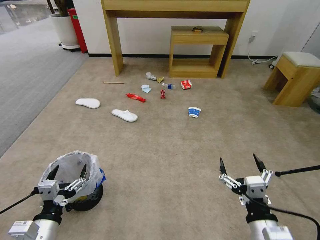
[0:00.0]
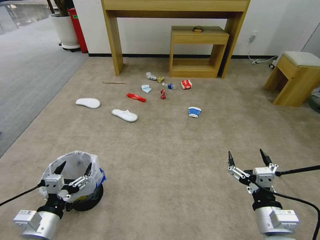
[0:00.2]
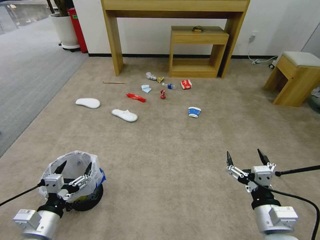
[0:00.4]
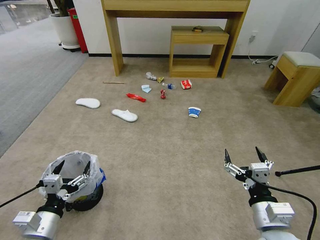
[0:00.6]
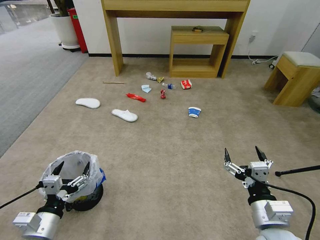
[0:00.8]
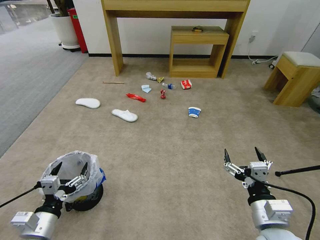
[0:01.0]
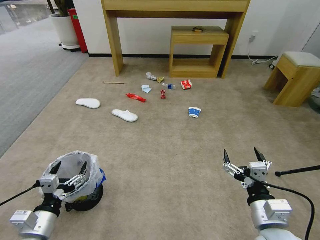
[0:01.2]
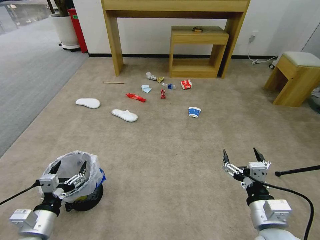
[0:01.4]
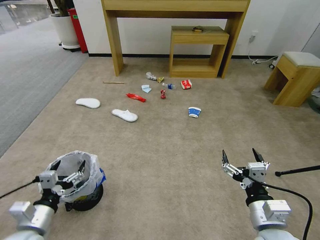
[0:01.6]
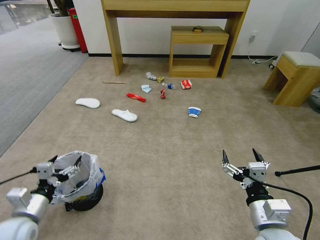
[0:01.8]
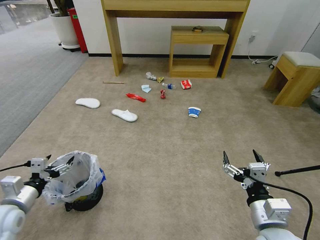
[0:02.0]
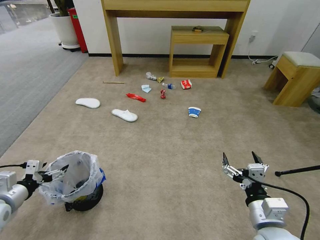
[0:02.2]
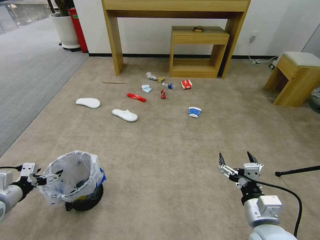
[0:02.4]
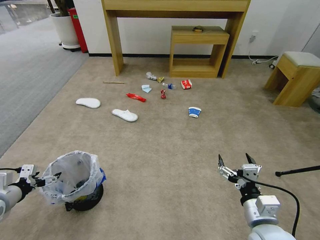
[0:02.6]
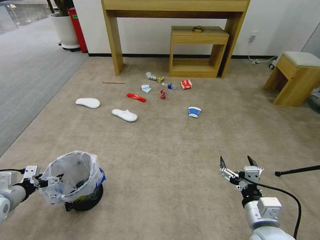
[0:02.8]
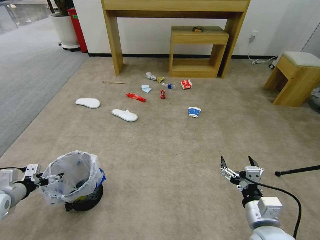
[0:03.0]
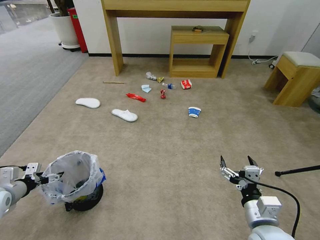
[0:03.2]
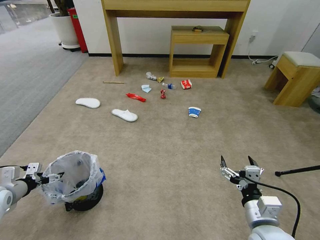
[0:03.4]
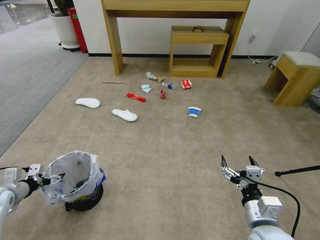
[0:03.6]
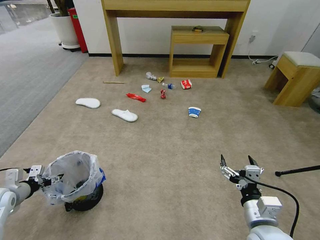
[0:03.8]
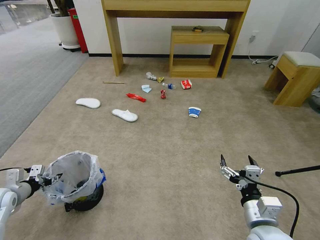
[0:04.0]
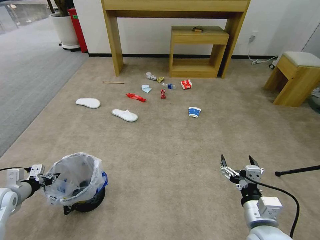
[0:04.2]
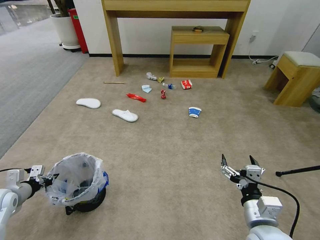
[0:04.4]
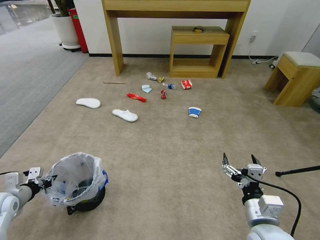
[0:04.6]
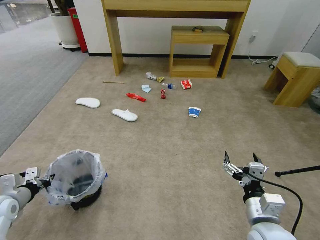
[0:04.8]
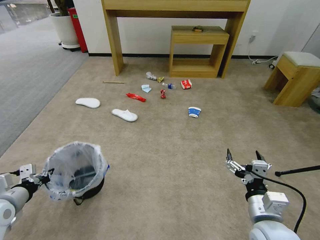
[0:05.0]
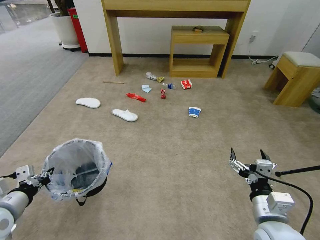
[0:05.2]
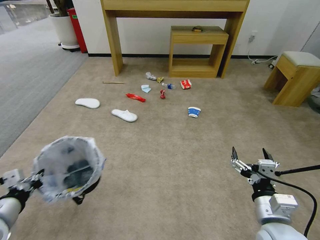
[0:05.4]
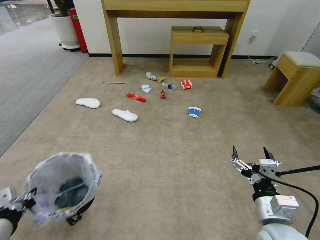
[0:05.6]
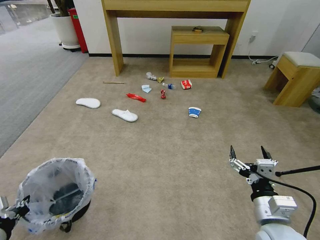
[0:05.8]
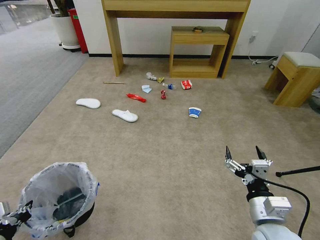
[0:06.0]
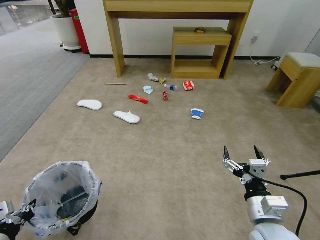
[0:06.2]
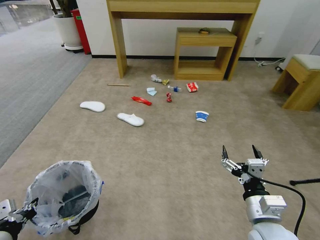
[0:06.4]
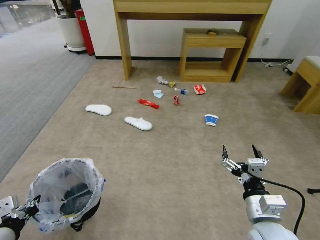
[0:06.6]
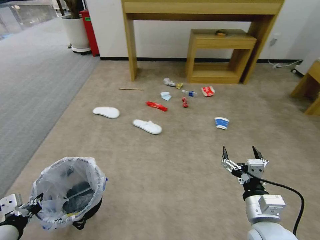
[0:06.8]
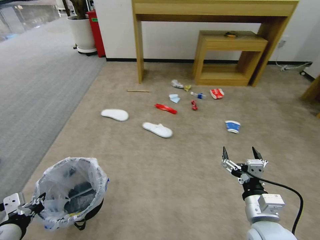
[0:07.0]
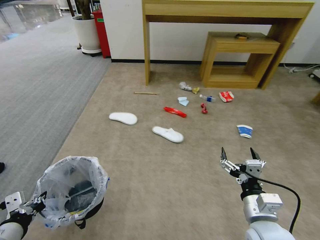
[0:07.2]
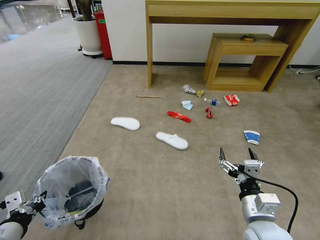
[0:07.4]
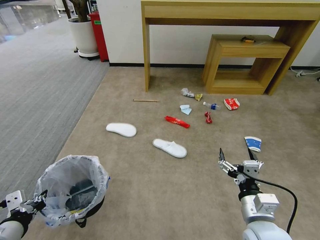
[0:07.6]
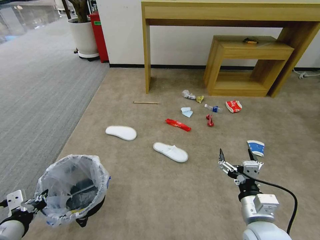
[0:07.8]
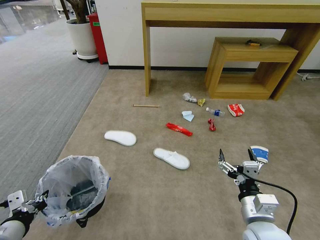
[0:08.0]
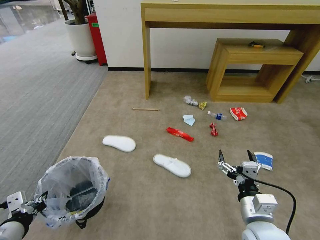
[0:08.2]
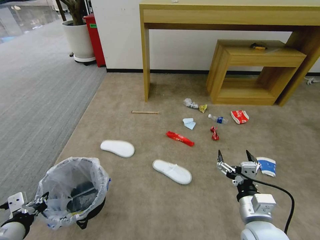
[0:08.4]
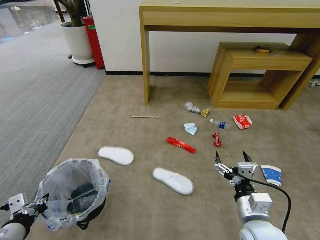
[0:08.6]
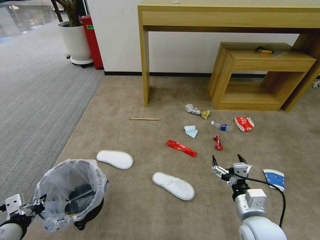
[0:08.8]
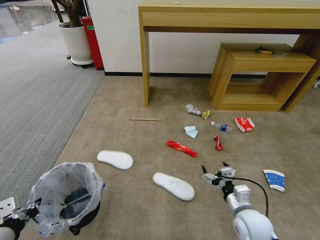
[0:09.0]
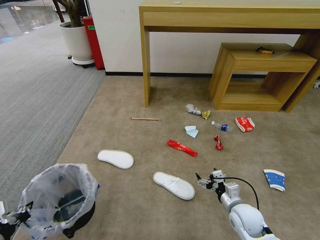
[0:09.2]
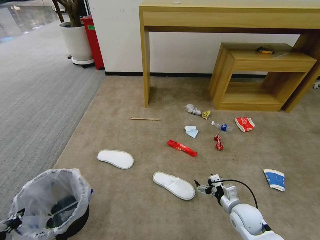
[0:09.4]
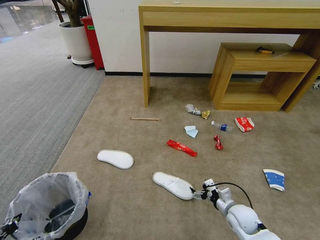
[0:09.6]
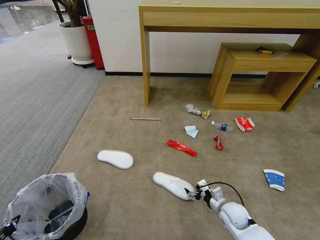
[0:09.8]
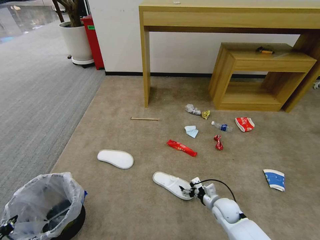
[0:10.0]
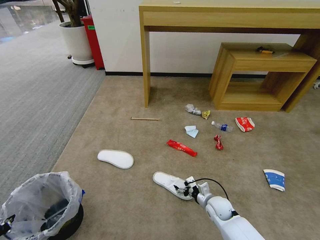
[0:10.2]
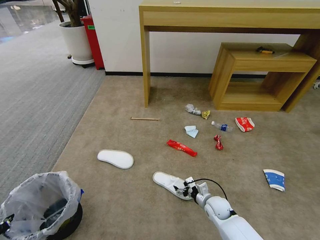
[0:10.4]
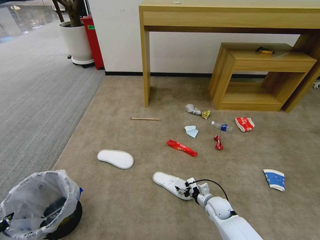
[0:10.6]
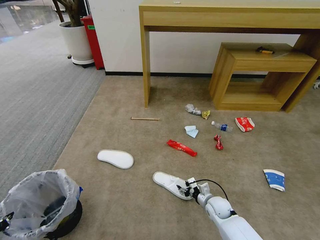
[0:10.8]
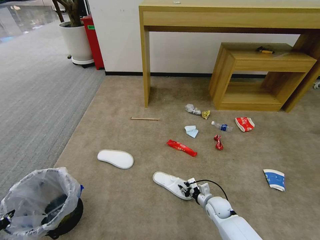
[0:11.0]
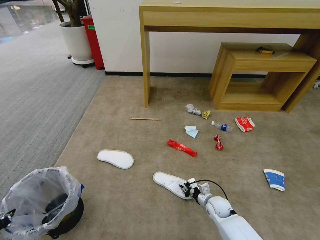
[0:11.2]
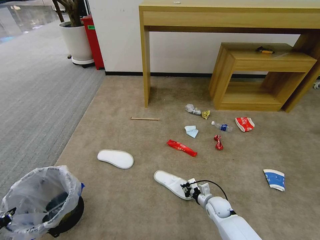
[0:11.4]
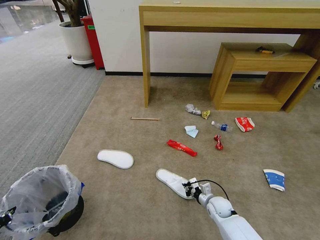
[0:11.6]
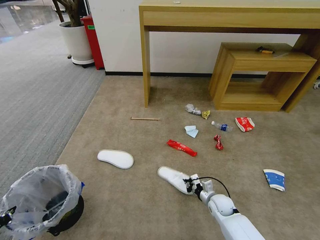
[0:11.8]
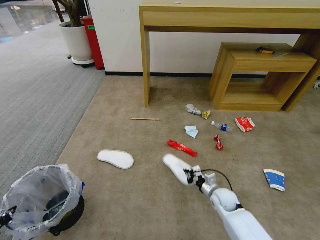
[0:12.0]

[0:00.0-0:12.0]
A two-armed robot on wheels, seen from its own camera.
Task of the whole recording: Pick up the trash bin and place the garbage on the floor into it.
0:01.6 to 0:03.0: The left gripper heads to the left and forward, covering roughly 20 cm.
0:03.0 to 0:04.4: The left gripper closes up.
0:04.4 to 0:06.0: The left gripper is displaced backward and to the right by about 20 cm.
0:07.6 to 0:09.0: The right gripper travels downward by about 10 cm.
0:09.0 to 0:10.4: The left gripper travels to the left by about 5 cm; the right gripper goes about 15 cm downward and forward.
0:10.4 to 0:12.0: The right gripper ends up roughly 5 cm from where it was, and closes up.

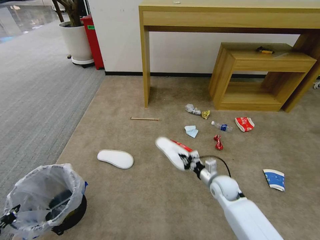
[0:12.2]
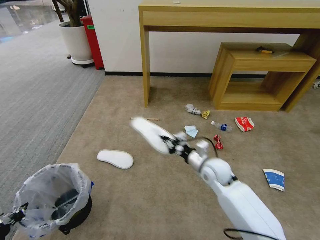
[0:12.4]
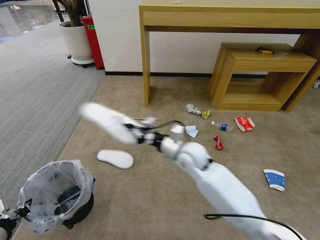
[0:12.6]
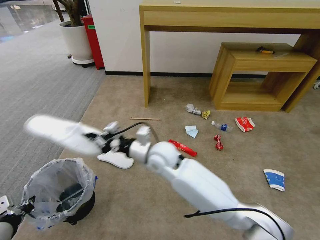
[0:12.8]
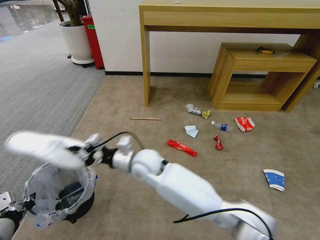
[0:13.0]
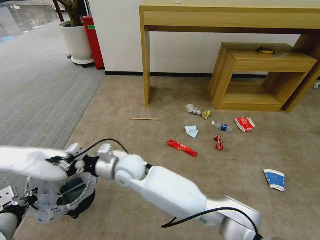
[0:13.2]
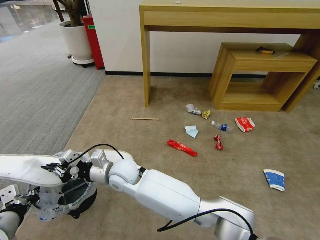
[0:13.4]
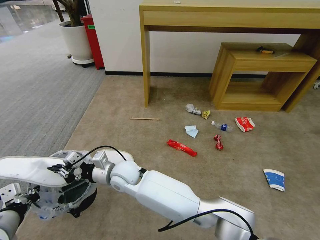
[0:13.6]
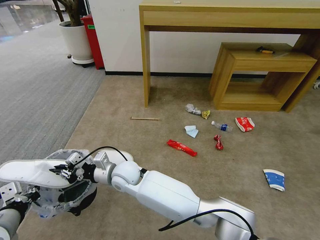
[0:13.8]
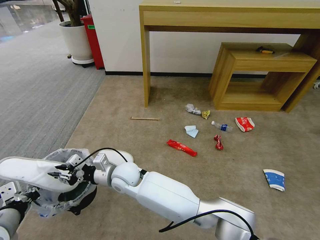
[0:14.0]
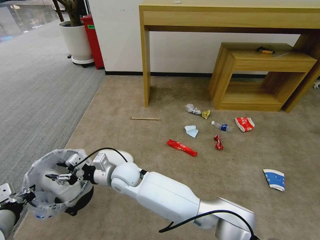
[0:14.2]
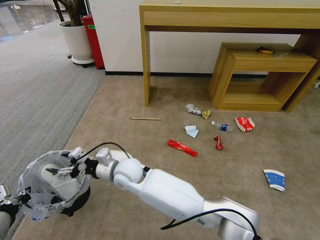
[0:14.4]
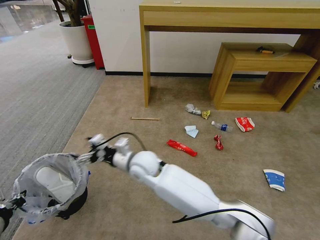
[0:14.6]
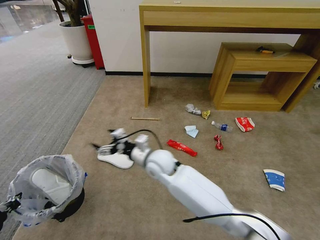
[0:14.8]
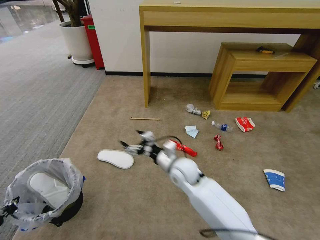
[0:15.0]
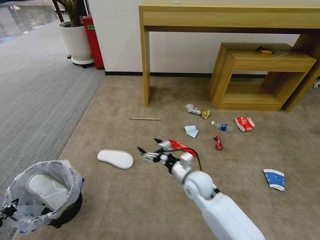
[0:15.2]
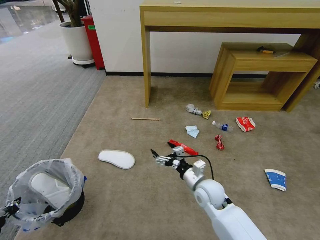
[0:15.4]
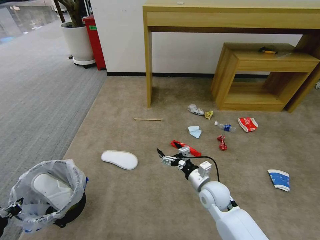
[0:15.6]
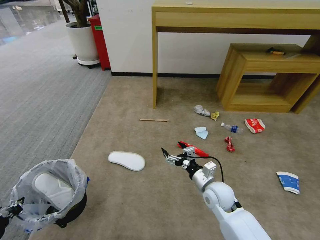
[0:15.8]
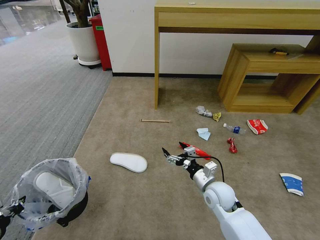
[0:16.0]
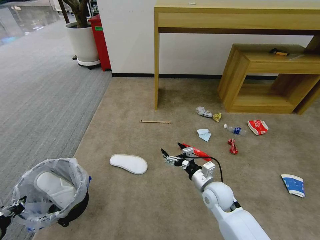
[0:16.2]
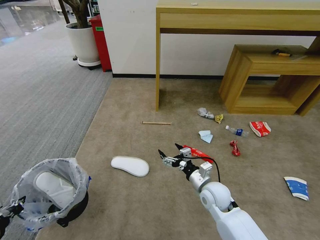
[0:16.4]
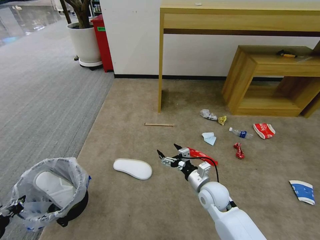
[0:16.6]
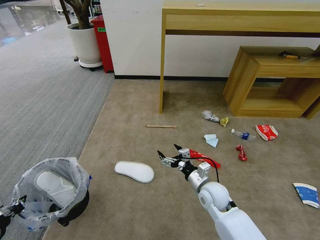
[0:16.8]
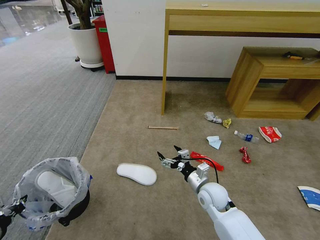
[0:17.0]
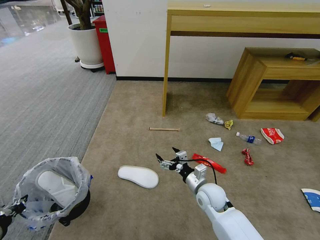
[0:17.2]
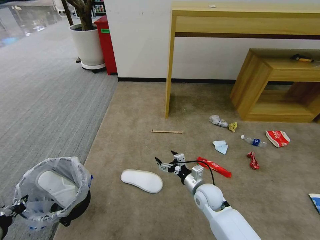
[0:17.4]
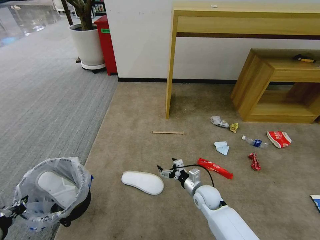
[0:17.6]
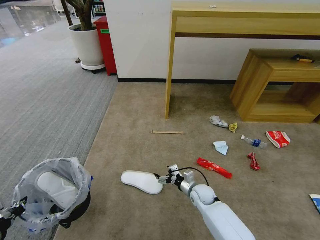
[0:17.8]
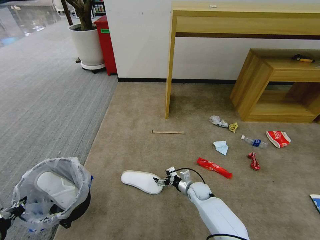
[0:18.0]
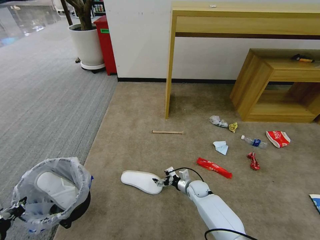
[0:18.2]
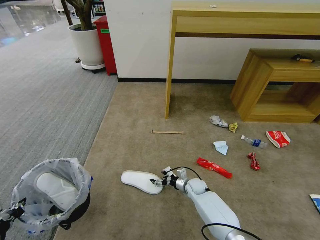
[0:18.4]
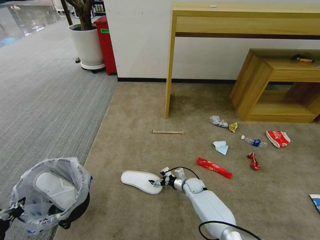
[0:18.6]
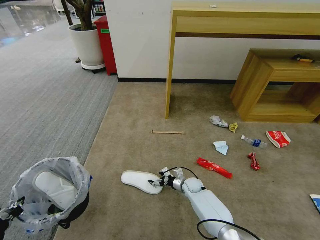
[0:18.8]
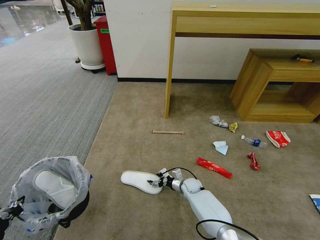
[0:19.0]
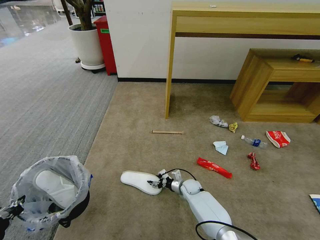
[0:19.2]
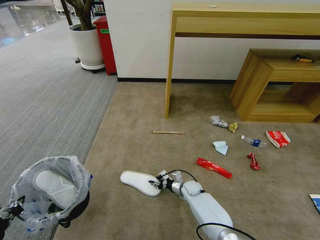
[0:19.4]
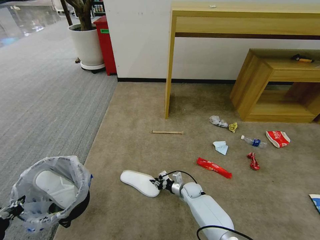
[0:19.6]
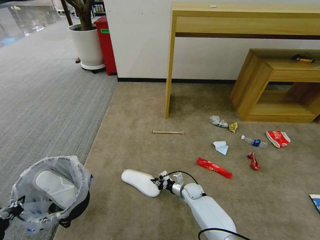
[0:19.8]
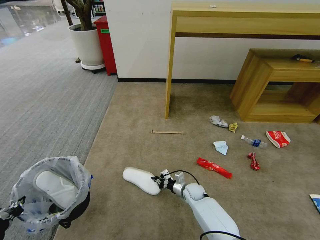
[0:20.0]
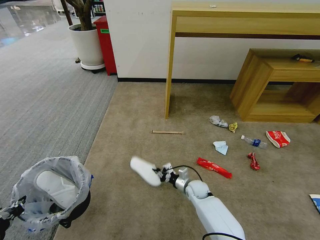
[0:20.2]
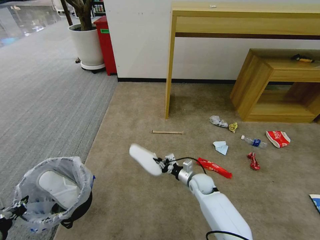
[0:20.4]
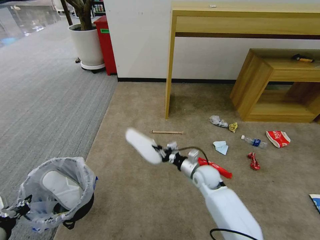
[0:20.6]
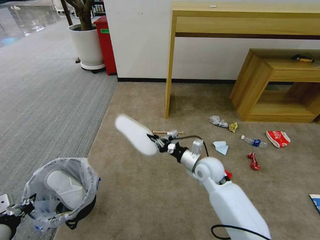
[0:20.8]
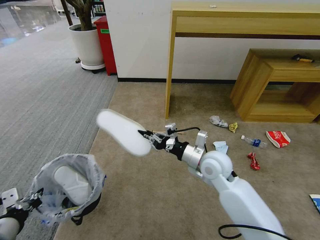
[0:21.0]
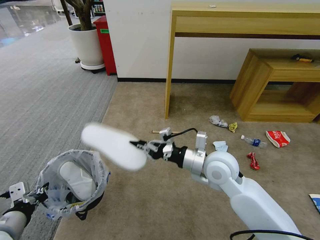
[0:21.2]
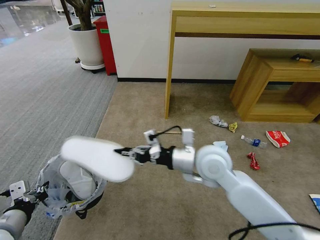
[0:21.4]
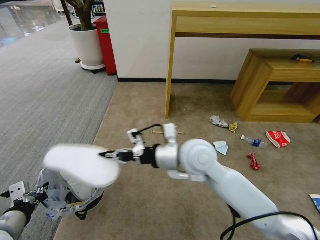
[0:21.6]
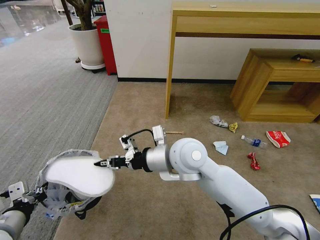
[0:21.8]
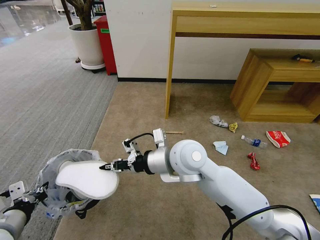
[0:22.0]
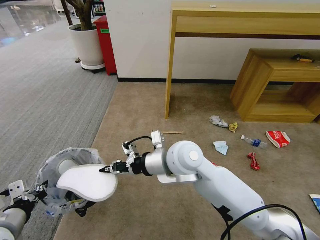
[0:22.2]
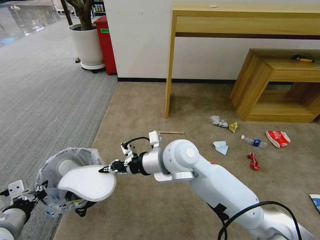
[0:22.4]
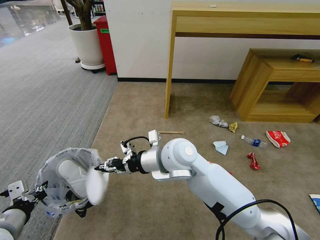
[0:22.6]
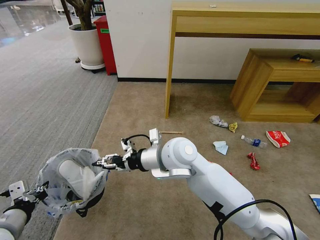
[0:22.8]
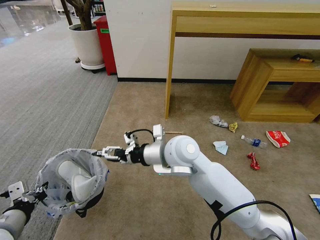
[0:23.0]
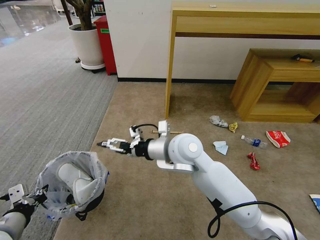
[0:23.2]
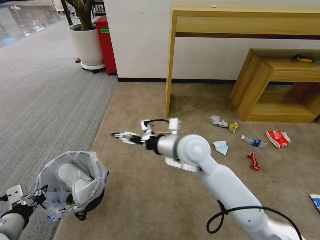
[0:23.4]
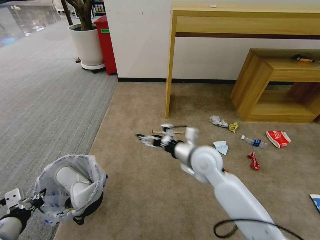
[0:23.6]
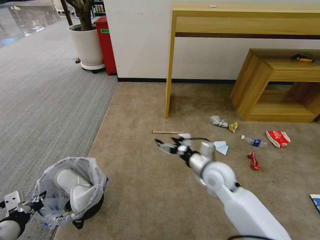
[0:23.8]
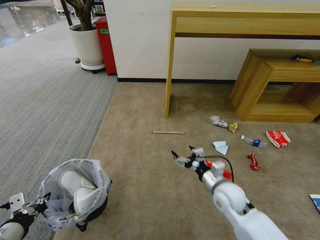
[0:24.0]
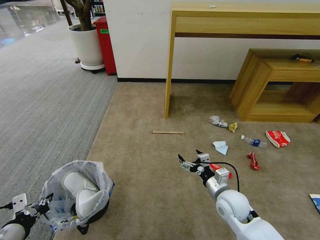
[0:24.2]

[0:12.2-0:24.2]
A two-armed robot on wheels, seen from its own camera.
Task of the whole recording: Pick up the trash bin and place the garbage on the floor into it.
0:12.2 to 0:13.8: The left gripper goes about 10 cm to the right and forward; the right gripper goes about 35 cm to the left.
0:13.8 to 0:15.2: The left gripper goes about 5 cm to the left; the right gripper heads to the right, covering about 25 cm, and opens its fingers.
0:15.2 to 0:16.6: The right gripper changes place by about 5 cm.
0:16.6 to 0:18.2: The right gripper shifts approximately 20 cm downward and forward.
0:18.2 to 0:19.8: The right gripper closes up.
0:19.8 to 0:21.2: The left gripper changes place by approximately 5 cm. The right gripper travels upward by some 35 cm.
0:21.2 to 0:22.6: The right gripper goes approximately 10 cm to the left.
0:22.6 to 0:24.2: The right gripper moves downward and to the right, about 25 cm, and opens.
